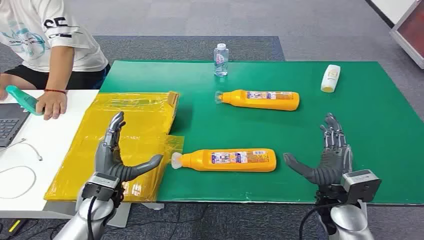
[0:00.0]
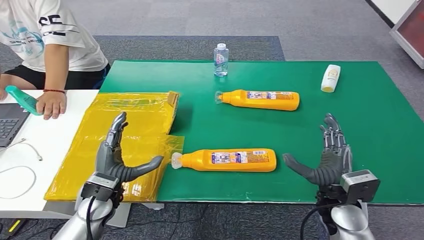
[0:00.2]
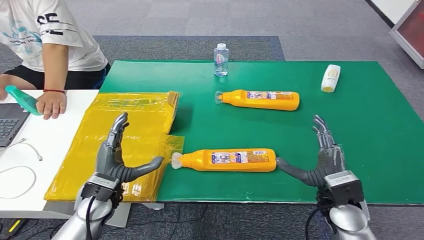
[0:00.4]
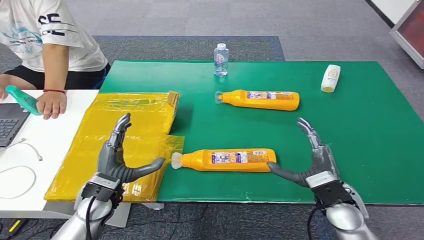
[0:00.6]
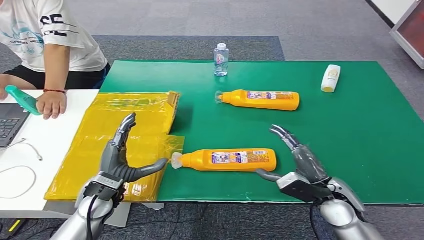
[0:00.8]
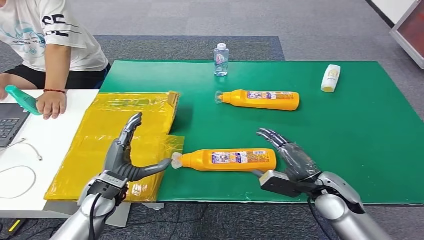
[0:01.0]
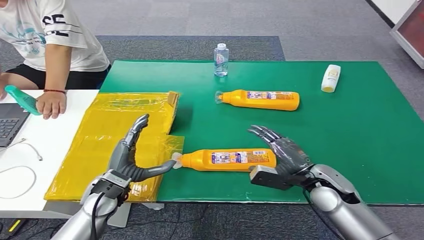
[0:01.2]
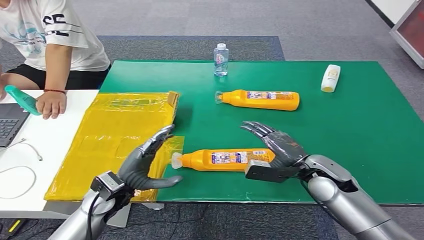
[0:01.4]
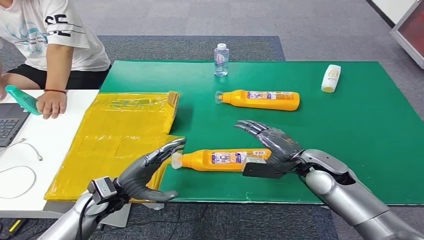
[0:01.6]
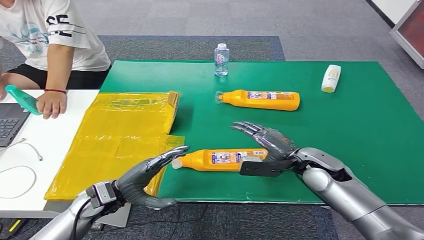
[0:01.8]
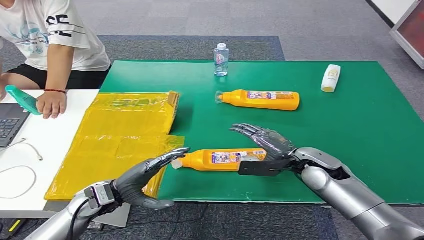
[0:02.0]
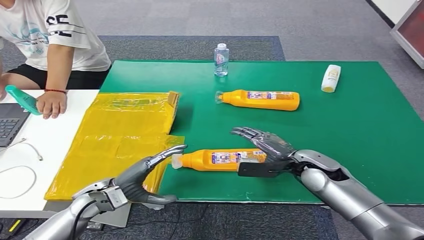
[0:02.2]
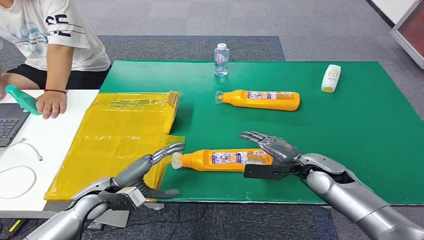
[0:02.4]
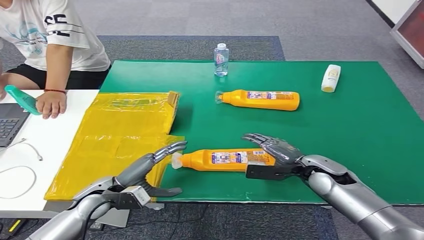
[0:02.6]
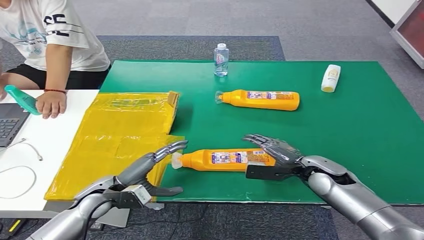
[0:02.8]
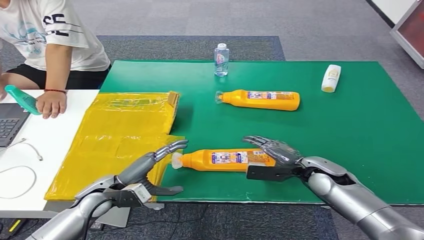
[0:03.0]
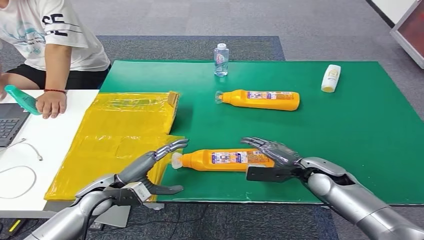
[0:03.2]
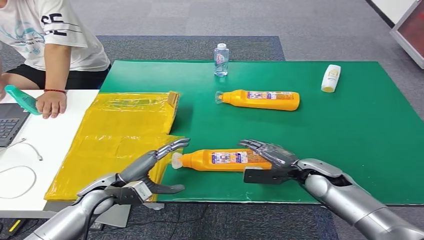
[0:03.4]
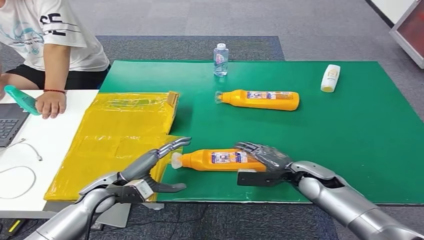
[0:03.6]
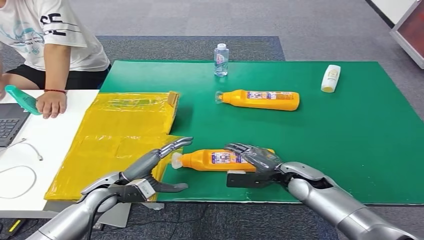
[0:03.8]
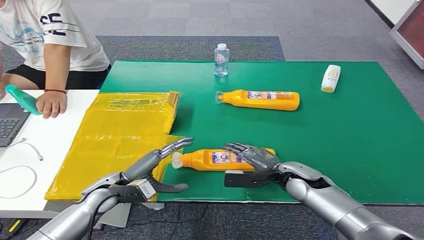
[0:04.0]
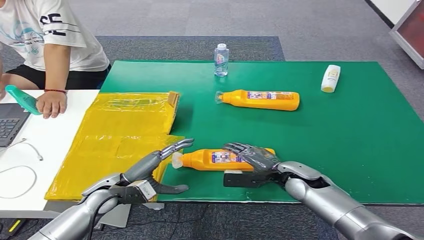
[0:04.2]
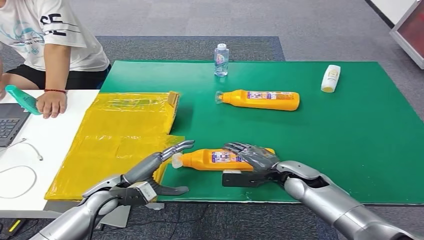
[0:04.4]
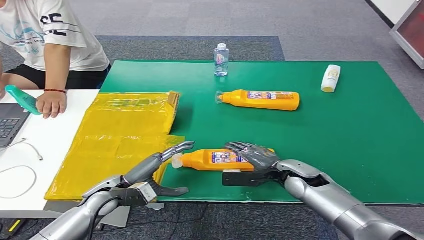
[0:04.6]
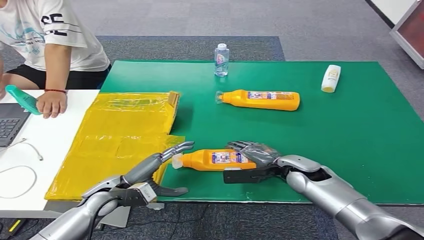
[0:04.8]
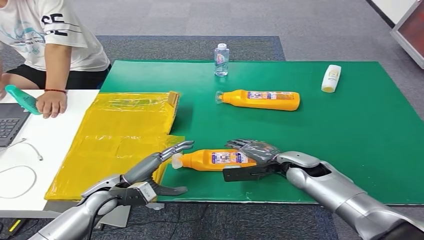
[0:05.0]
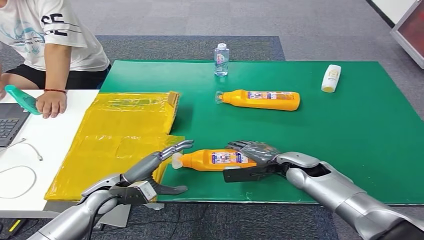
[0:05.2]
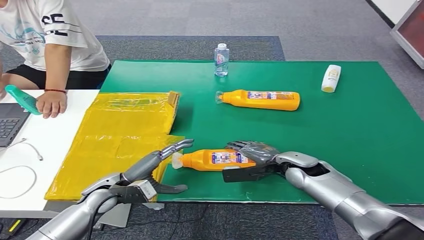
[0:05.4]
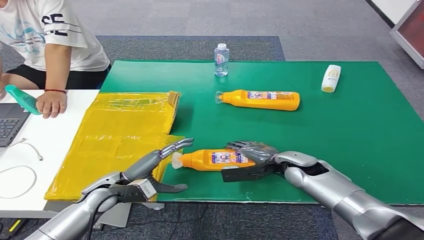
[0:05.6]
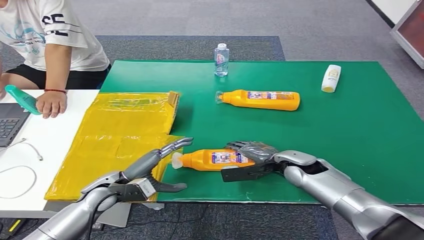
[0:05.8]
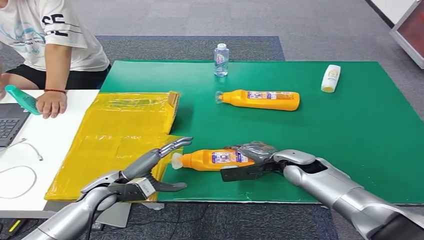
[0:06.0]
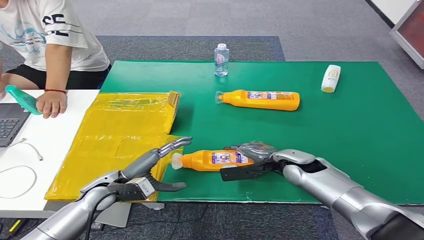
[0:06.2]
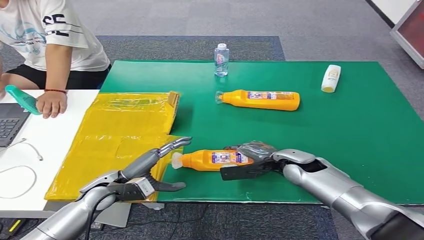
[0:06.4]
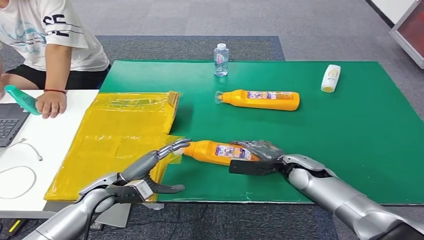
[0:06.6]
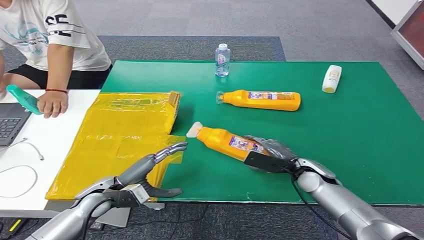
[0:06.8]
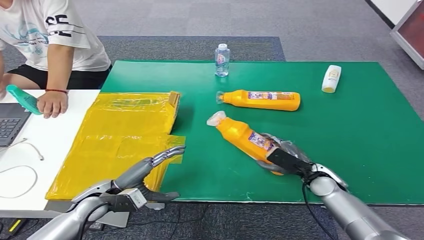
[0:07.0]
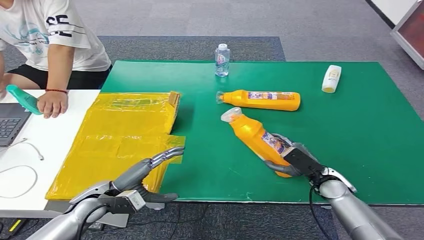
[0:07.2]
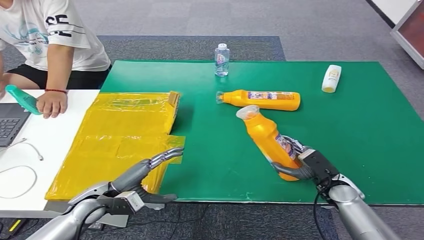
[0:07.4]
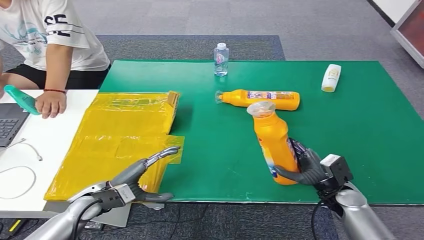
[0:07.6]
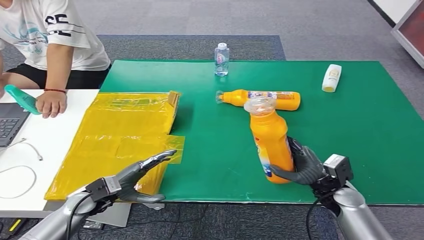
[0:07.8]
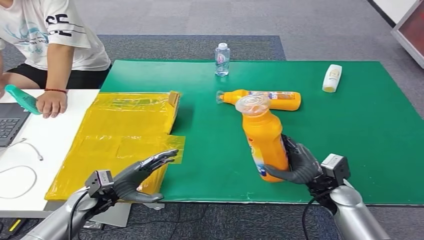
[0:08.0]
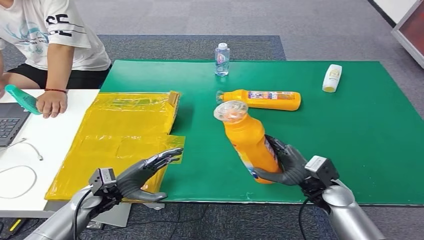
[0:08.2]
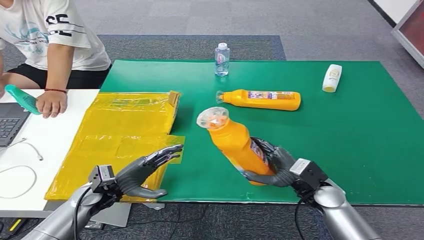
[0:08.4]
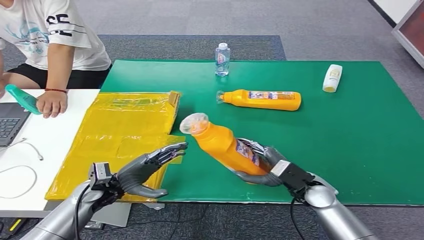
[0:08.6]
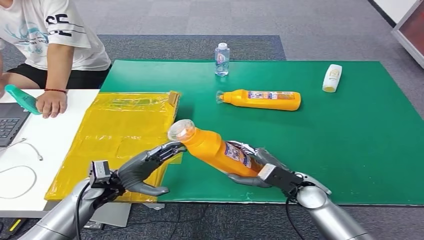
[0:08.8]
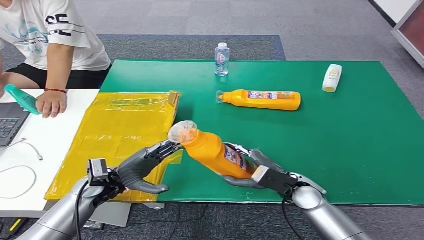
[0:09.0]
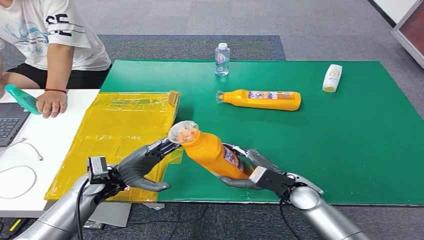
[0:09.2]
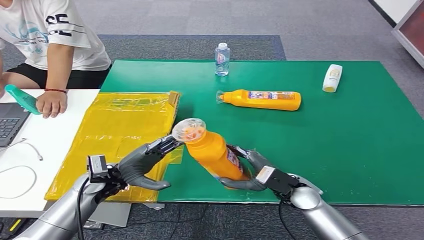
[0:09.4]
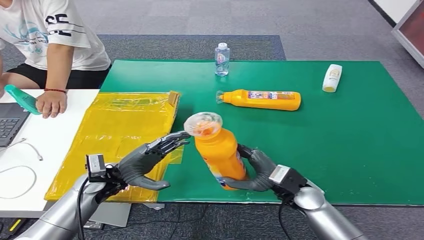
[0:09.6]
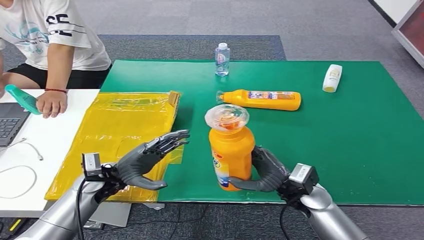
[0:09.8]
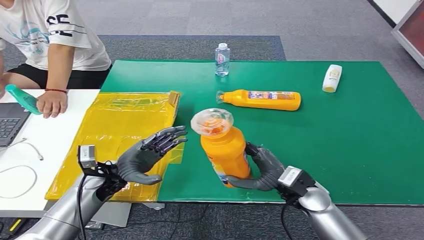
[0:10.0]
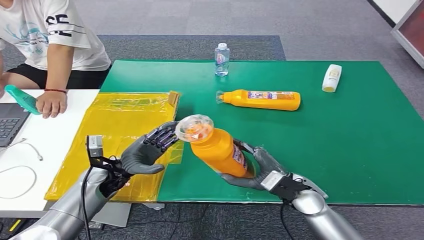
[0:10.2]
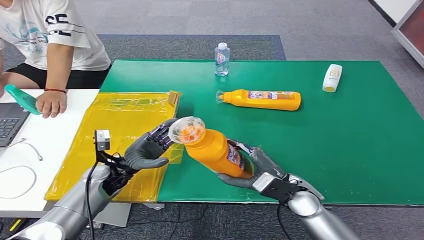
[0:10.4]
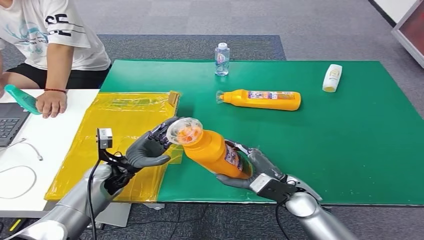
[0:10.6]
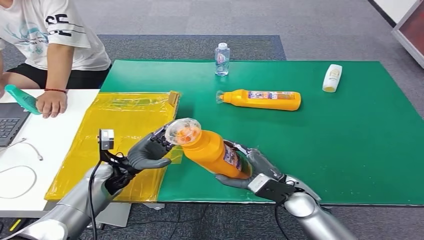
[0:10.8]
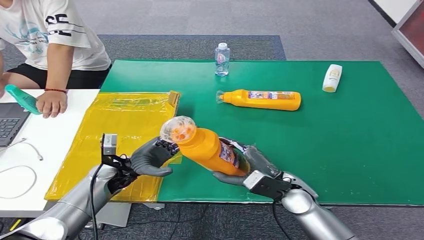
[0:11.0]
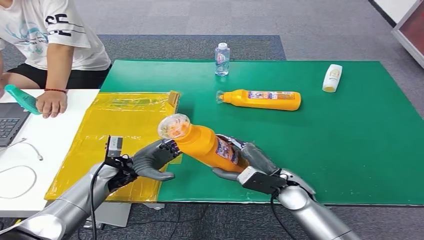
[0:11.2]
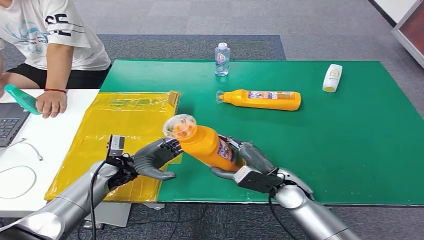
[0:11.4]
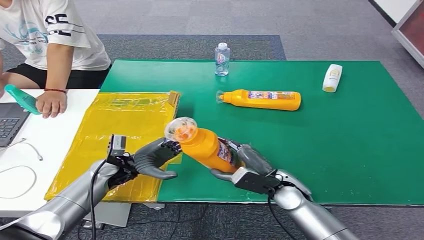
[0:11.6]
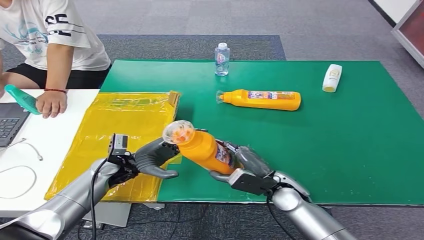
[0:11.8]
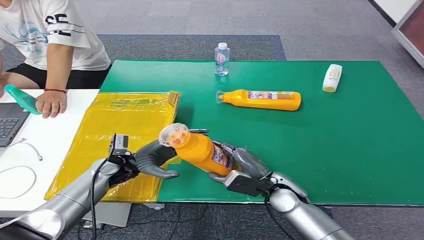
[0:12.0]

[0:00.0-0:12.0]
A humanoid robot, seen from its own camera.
Step, 0:00.0 to 0:07.4: Pick up the bottle from the table.
0:01.6 to 0:03.0: The right hand moves some 5 cm.
0:03.0 to 0:04.4: The right hand moves to the left, roughly 5 cm.
0:04.4 to 0:06.0: The hands make only small movements.
0:06.0 to 0:07.6: The right hand shifts some 15 cm to the right, backward and downward.
0:07.6 to 0:09.0: The right hand moves to the left, roughly 10 cm.
0:10.4 to 0:12.0: The hands stay close to where they were, moving slightly.

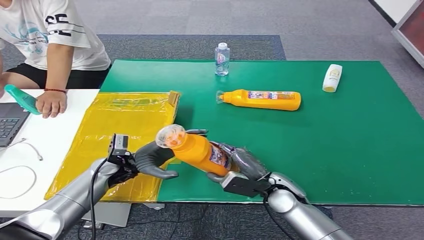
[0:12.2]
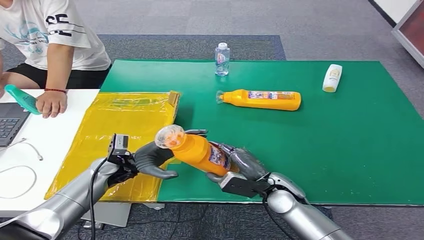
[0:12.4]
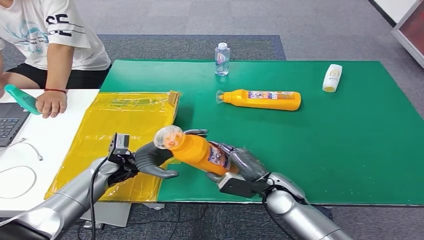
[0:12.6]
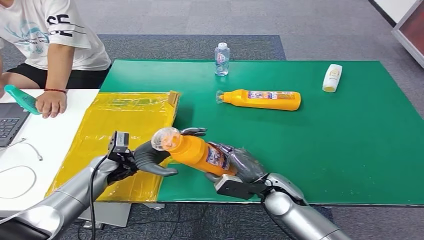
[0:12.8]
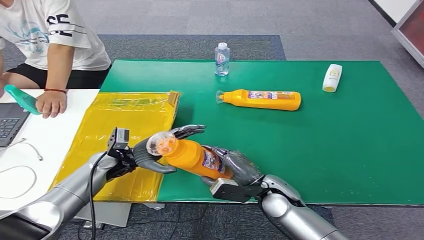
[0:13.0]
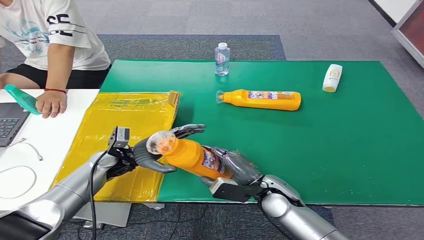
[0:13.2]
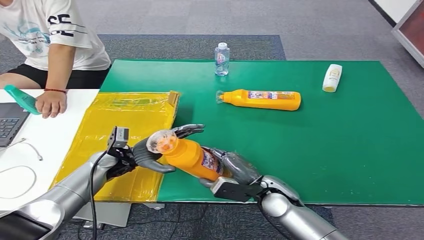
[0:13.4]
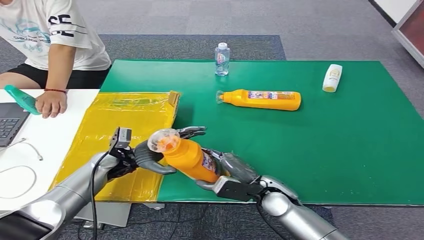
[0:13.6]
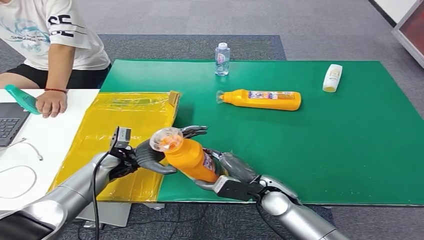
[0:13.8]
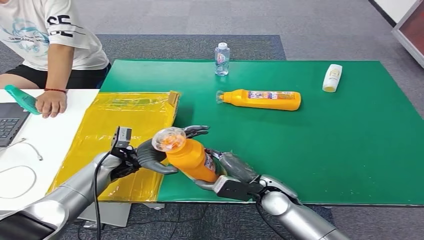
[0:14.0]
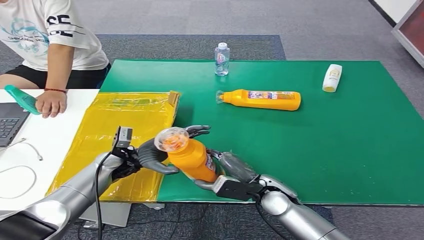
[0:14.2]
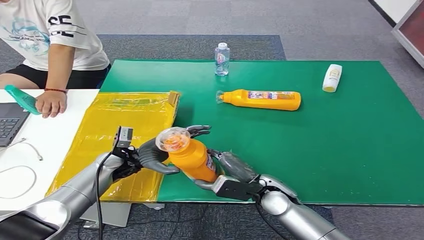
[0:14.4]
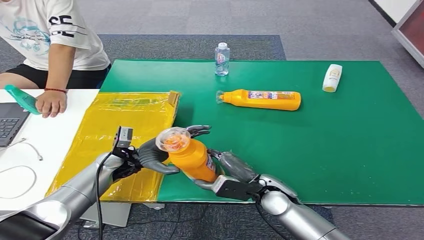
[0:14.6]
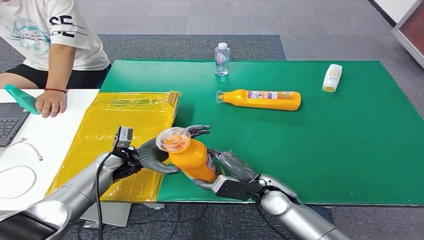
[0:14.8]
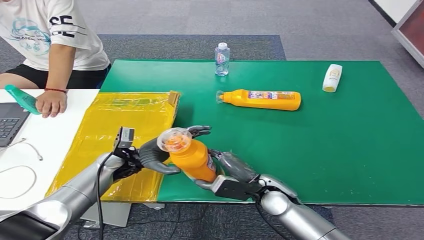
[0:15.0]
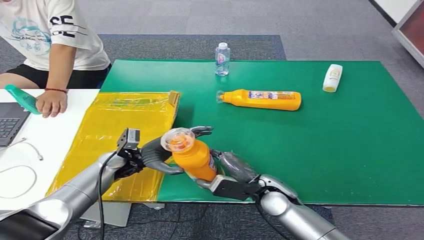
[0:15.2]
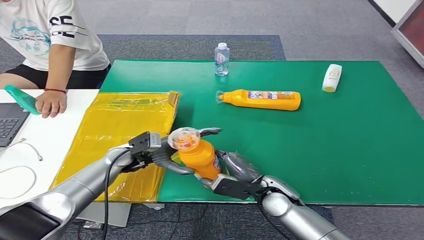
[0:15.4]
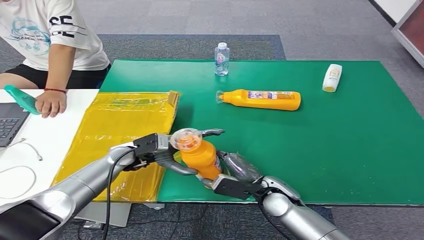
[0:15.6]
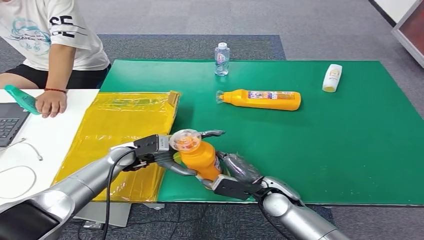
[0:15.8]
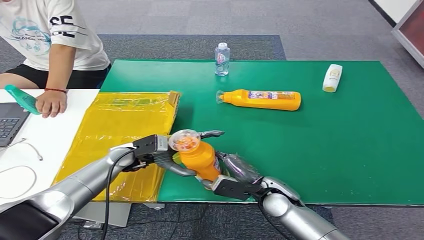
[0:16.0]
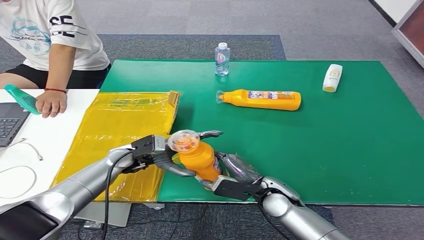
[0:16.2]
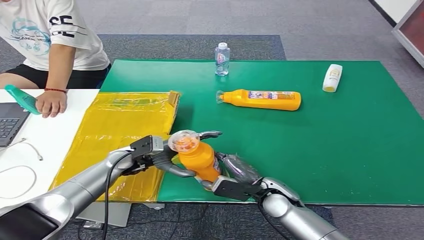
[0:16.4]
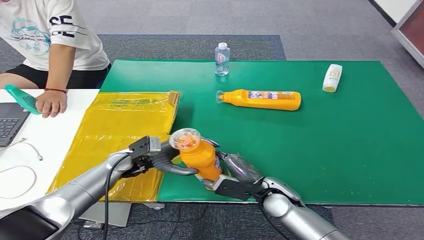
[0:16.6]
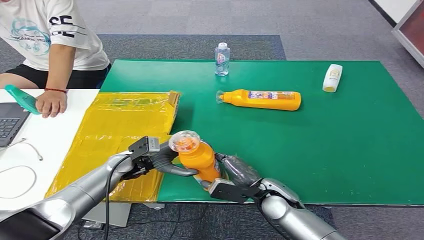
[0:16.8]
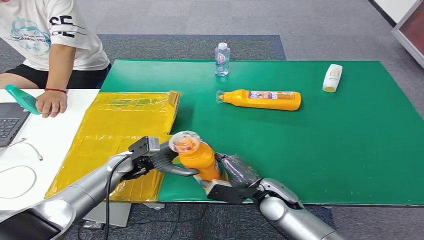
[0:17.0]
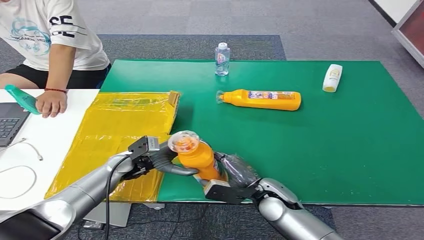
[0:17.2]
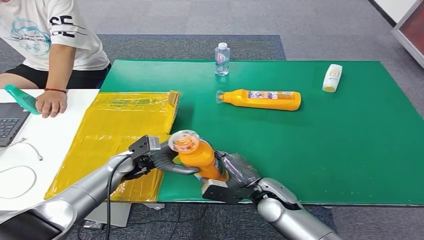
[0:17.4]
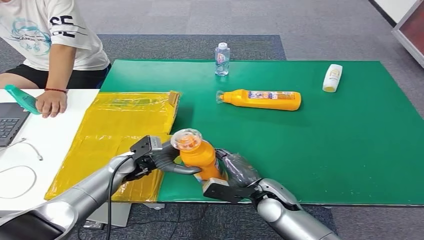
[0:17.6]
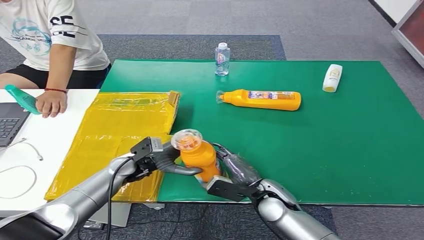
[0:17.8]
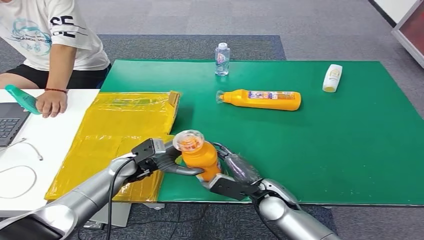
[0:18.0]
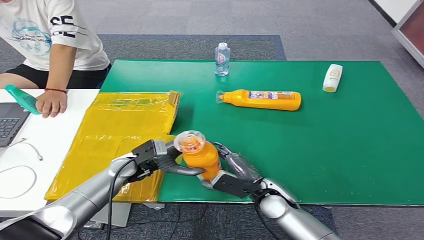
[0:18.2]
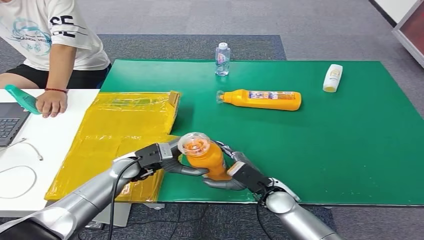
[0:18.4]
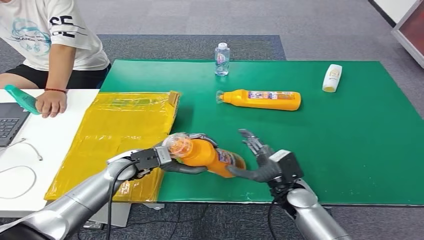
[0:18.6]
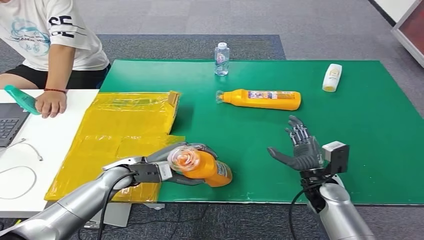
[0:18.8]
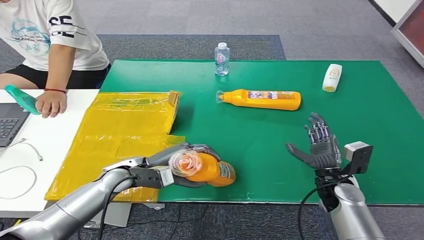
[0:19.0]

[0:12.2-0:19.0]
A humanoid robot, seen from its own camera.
0:12.2 to 0:13.6: The hands stay close to where they were, moving slightly.
0:13.6 to 0:15.0: Neither hand changes place.
0:16.2 to 0:17.6: The hands make only small movements.
0:17.6 to 0:19.0: The right hand shifts about 15 cm to the right. Meanwhile the left hand moves about 5 cm.
